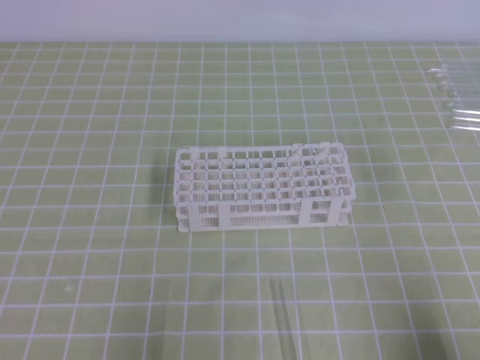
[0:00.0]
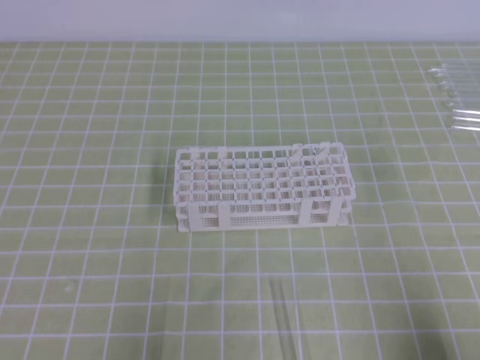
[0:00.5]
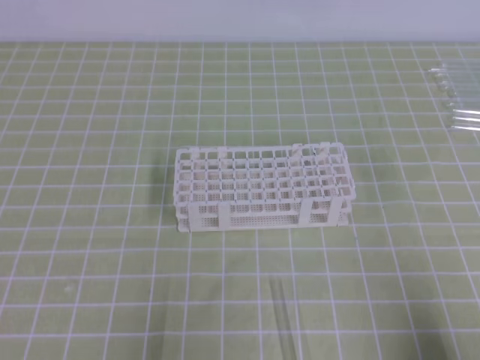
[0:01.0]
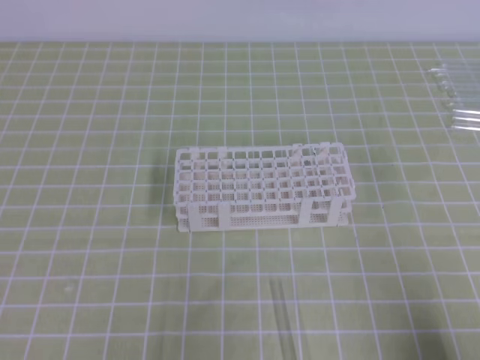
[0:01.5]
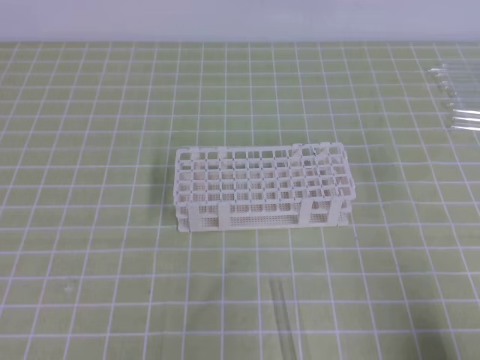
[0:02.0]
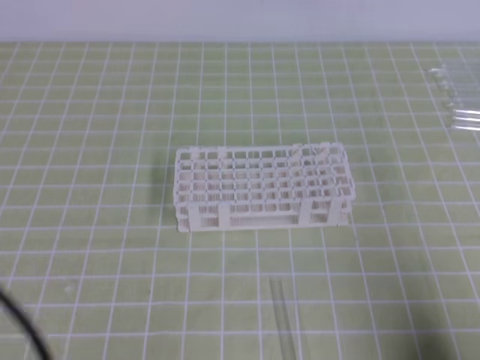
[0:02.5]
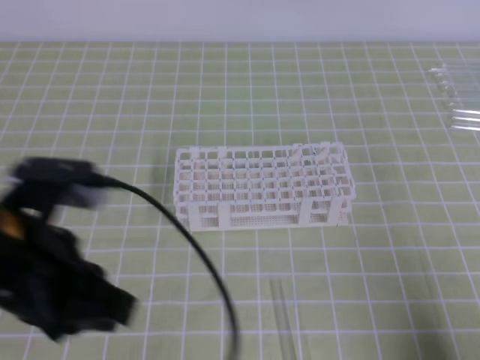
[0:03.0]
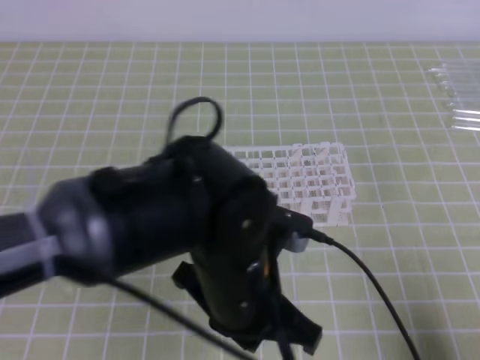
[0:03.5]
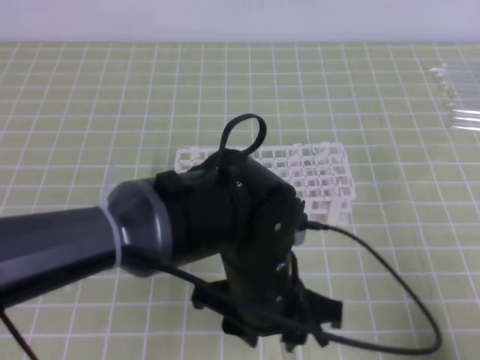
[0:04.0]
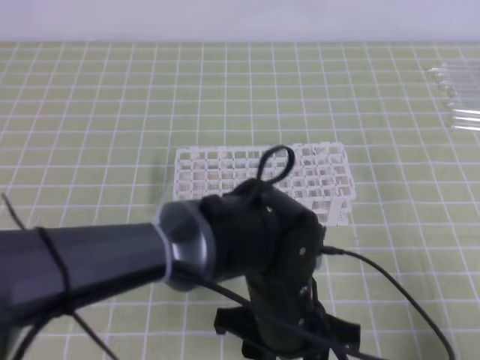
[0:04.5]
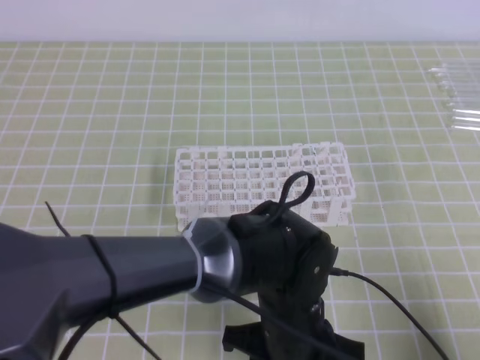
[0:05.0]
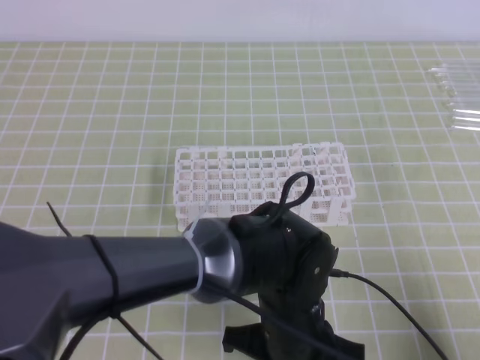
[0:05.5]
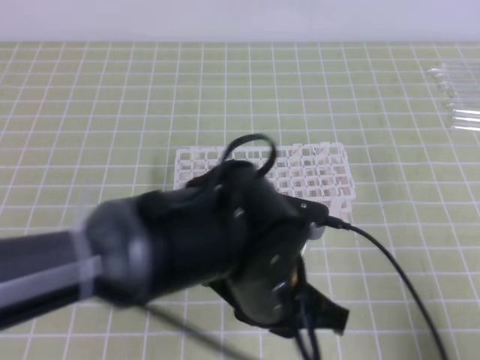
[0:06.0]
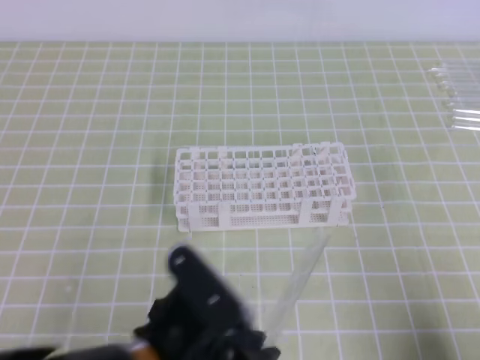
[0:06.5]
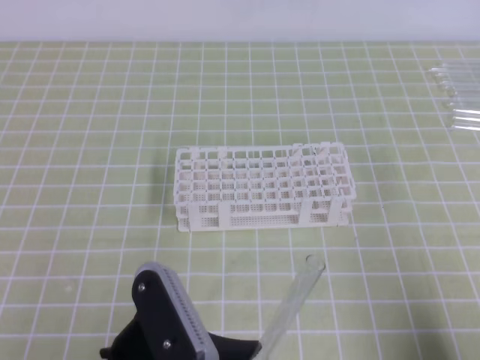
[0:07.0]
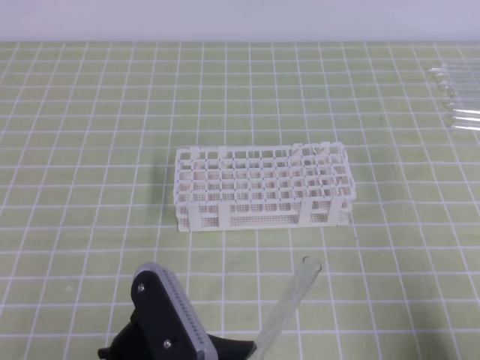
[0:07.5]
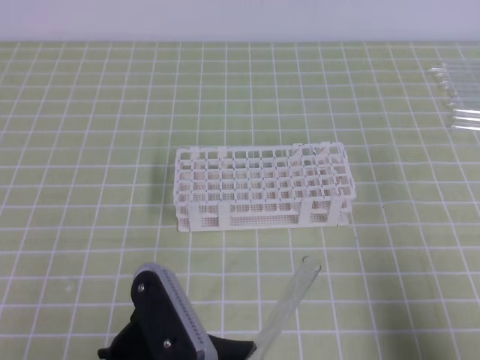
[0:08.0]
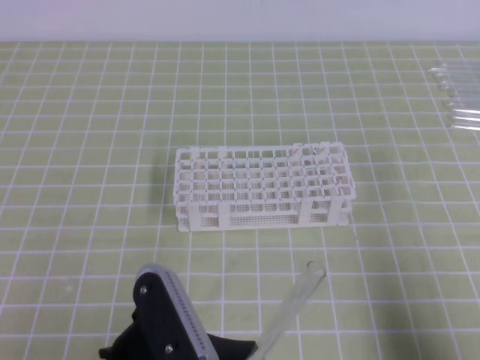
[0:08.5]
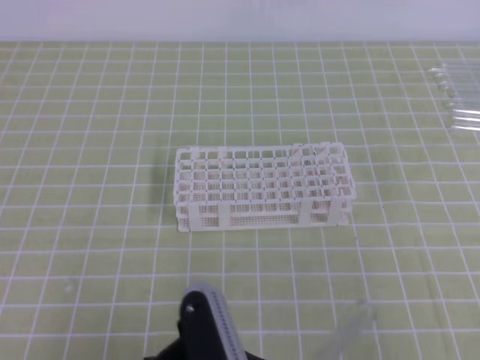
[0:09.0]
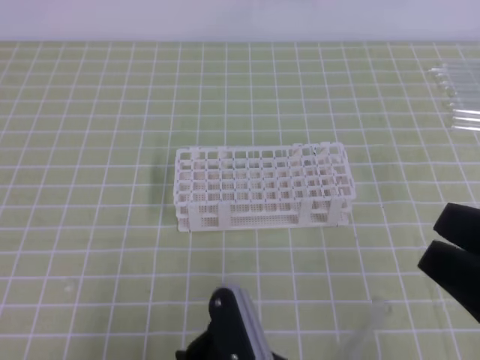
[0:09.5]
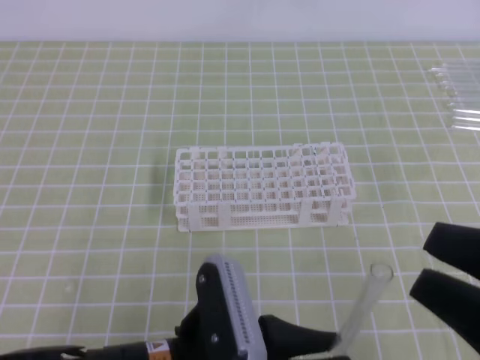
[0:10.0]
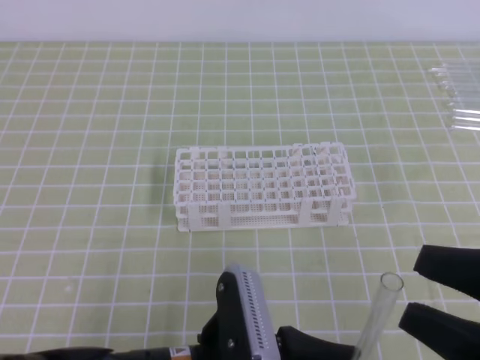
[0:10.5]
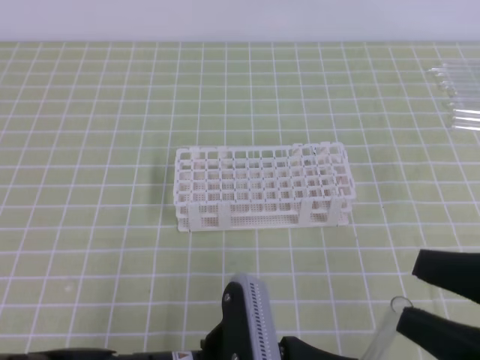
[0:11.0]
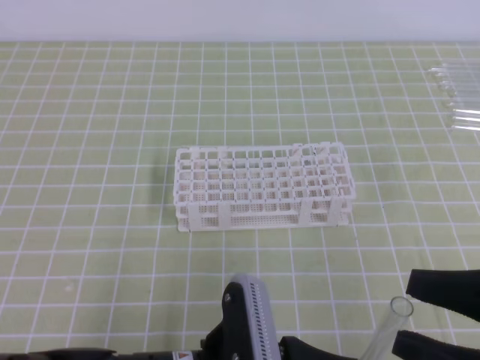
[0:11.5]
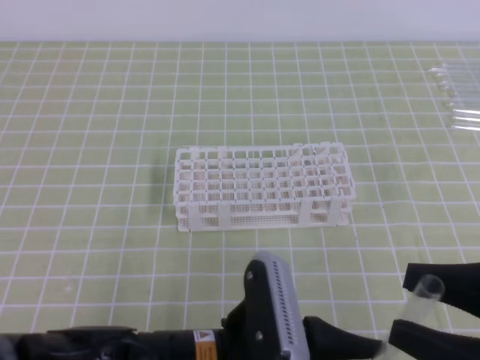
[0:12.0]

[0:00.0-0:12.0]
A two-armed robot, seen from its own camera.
0:02.0 to 0:04.0: The left gripper travels to the right and forward by roughly 30 cm, and opens up.
0:04.0 to 0:06.0: The left gripper closes.
0:06.0 to 0:08.0: The left gripper moves to the left and backward, some 15 cm.
0:08.0 to 0:10.0: The right gripper travels upward and to the left by about 15 cm, and opens its fingers, while the left gripper moves some 5 cm.
0:10.0 to 0:12.0: The grippers move only a little.

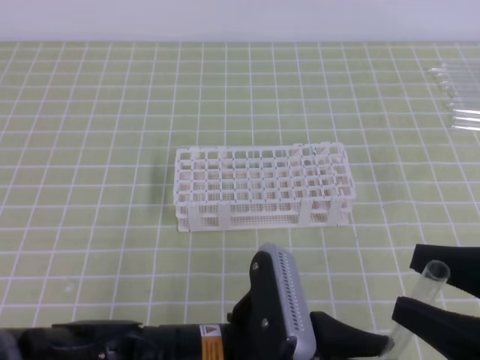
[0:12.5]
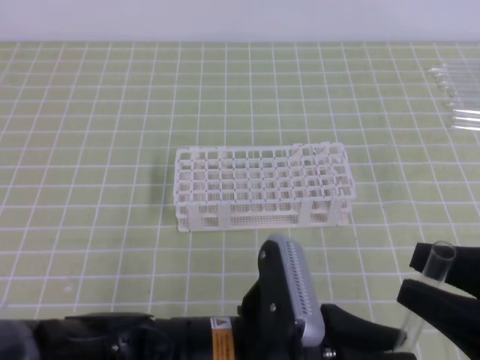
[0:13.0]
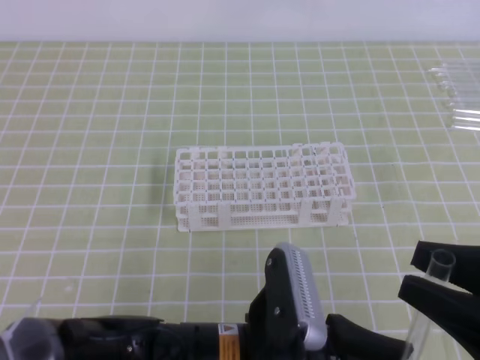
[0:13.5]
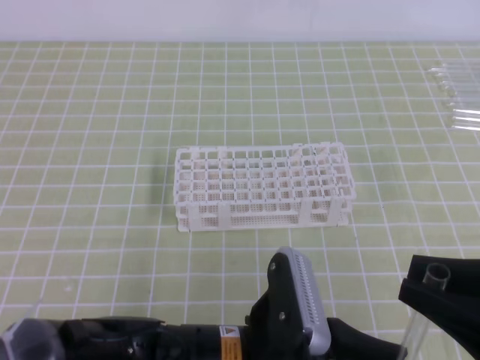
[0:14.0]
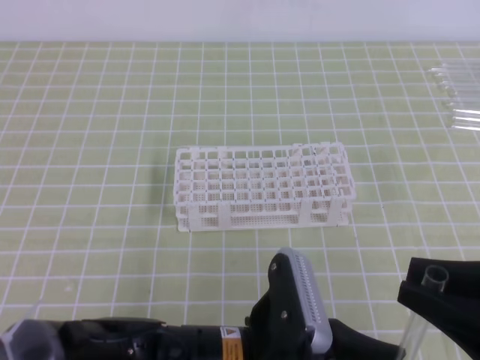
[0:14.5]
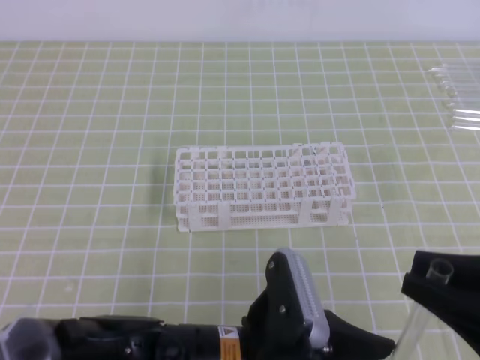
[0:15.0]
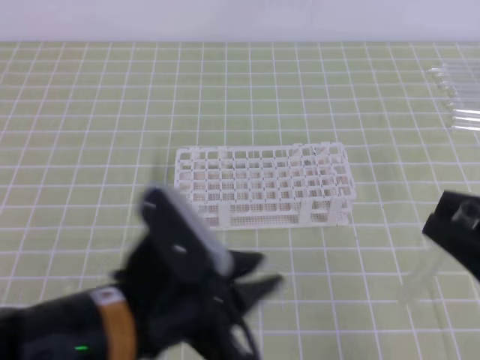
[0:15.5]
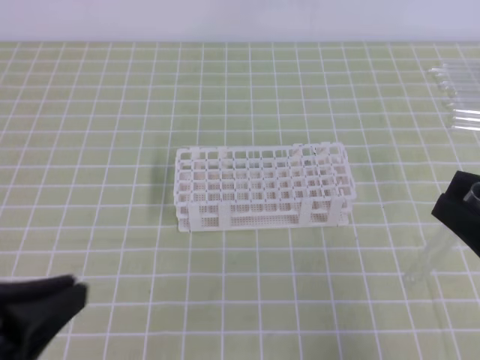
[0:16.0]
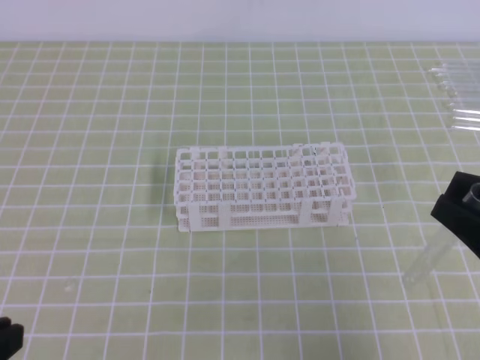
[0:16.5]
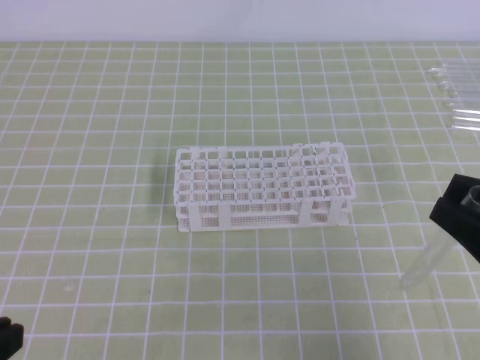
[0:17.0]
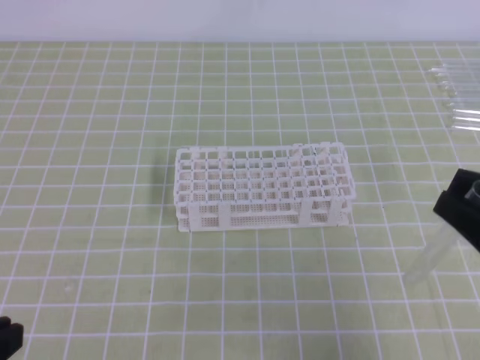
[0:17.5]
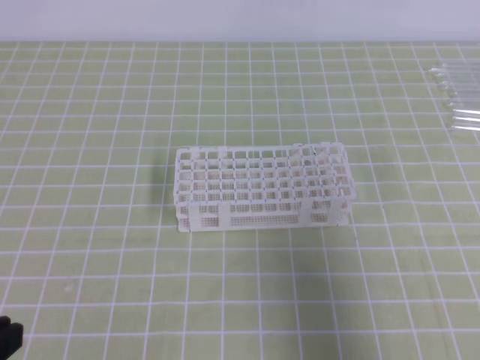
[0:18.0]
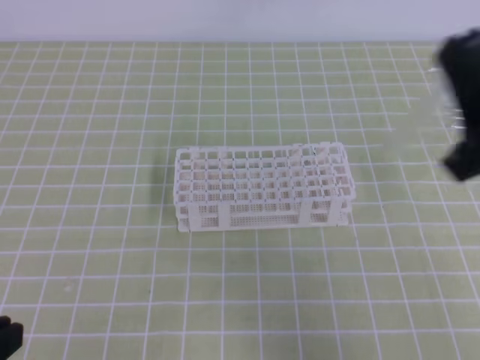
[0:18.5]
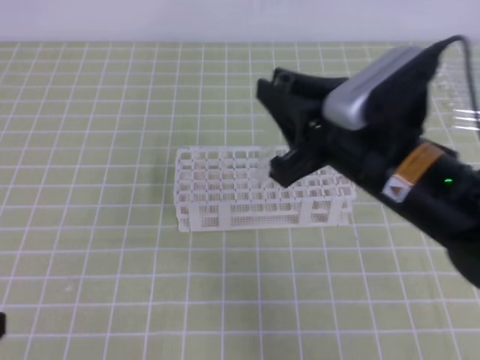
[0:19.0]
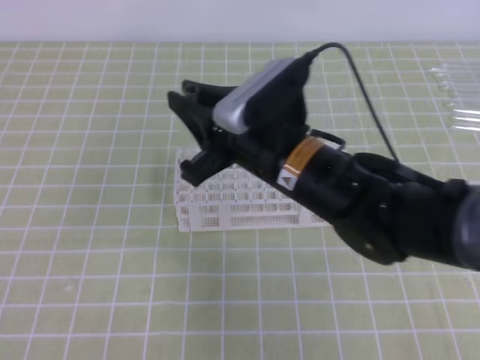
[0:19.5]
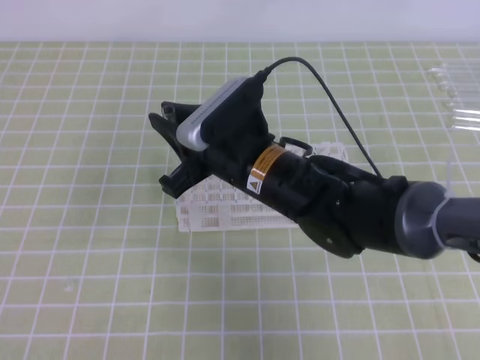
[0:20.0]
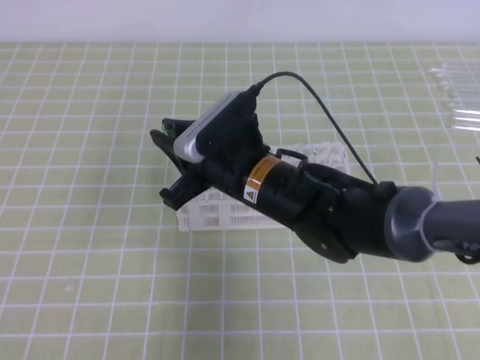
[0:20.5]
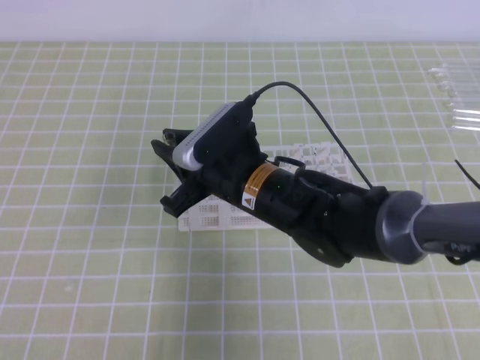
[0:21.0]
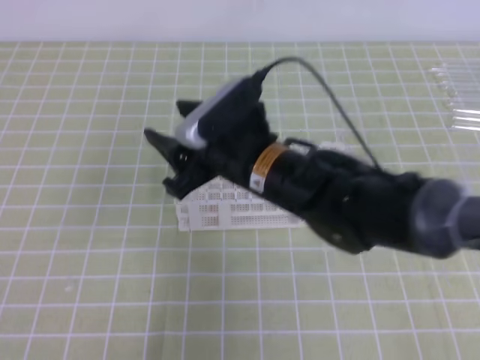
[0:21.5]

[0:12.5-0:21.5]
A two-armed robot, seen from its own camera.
0:12.5 to 0:14.5: The right gripper closes its fingers.
0:14.5 to 0:17.0: The left gripper heads to the left, covering about 25 cm, and opens, then closes once more.
0:17.0 to 0:19.5: The right gripper shifts some 25 cm to the left and forward.
0:19.5 to 0:21.5: The left gripper is displaced downward by roughly 10 cm, while the right gripper opens its fingers.

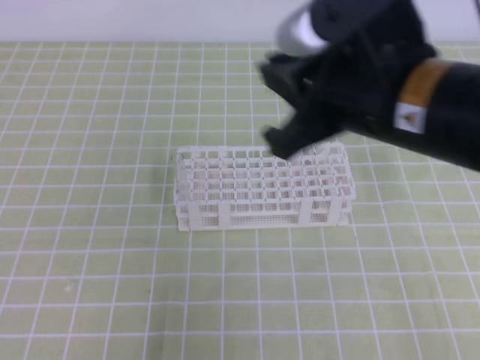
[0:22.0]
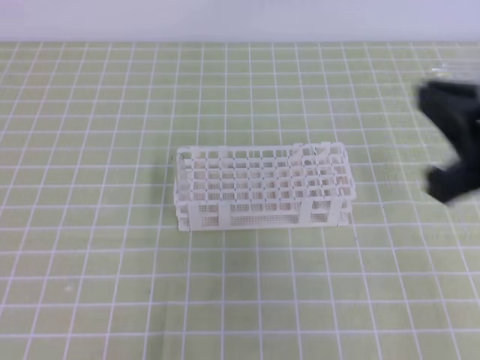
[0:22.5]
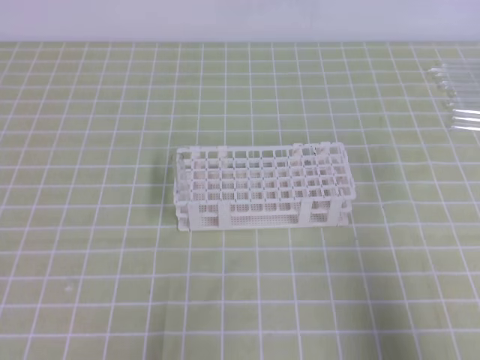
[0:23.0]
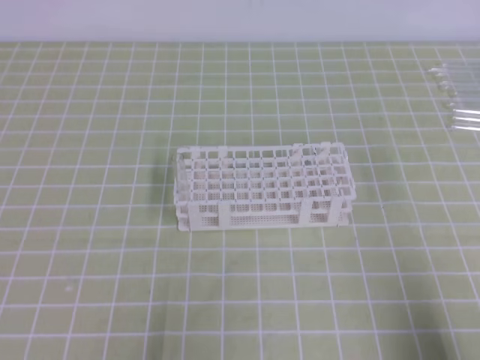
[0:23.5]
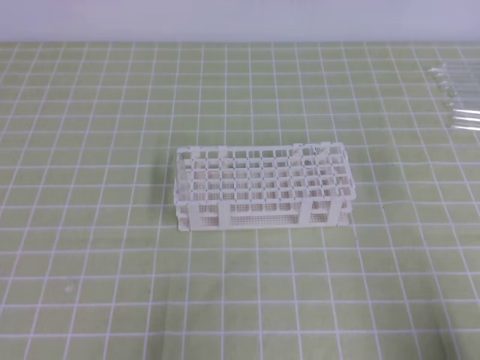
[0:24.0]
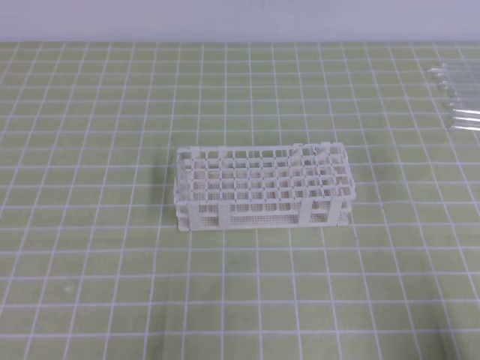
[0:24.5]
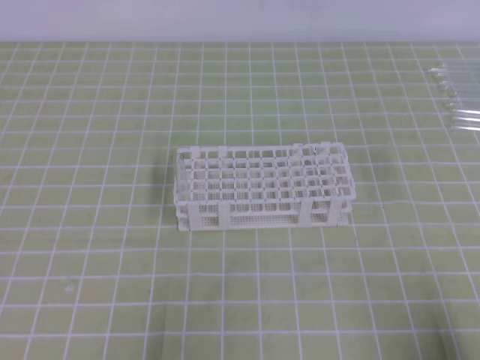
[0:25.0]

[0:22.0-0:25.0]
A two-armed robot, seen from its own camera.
0:22.0 to 0:23.5: The right gripper goes roughly 30 cm to the right, downward and backward.

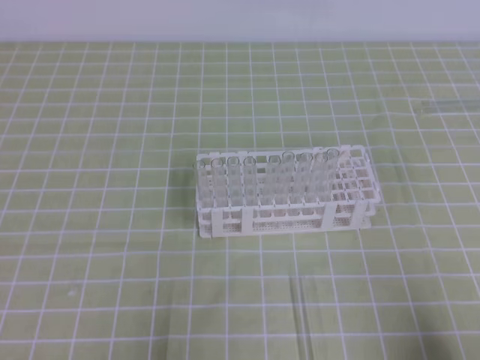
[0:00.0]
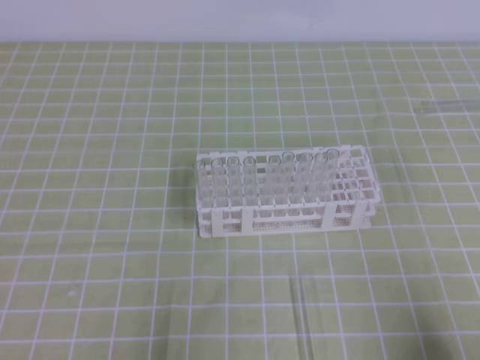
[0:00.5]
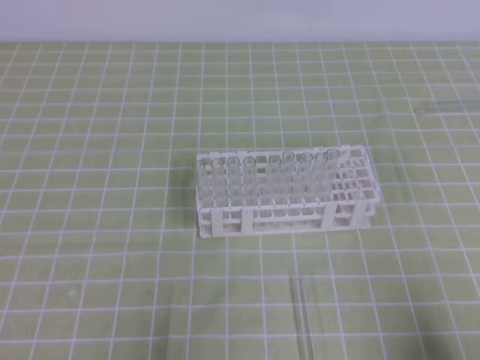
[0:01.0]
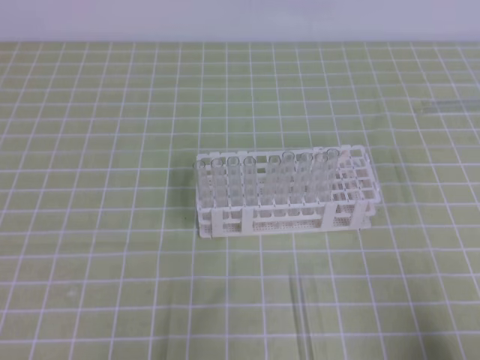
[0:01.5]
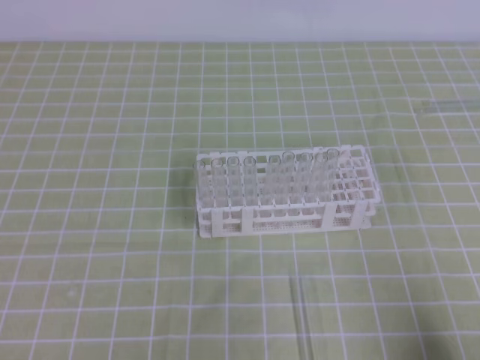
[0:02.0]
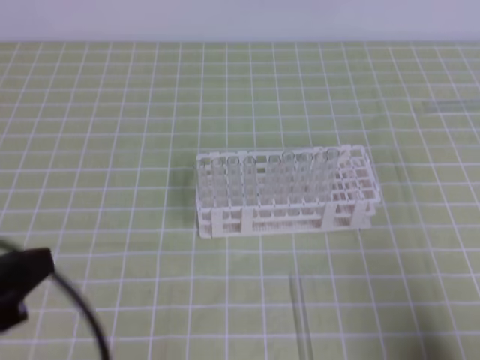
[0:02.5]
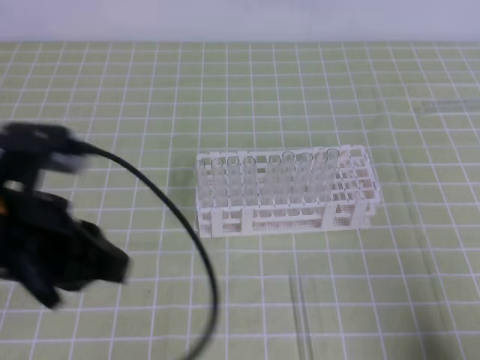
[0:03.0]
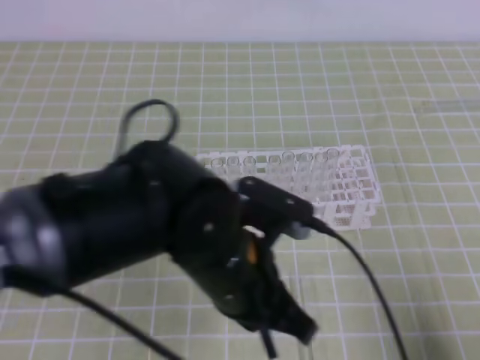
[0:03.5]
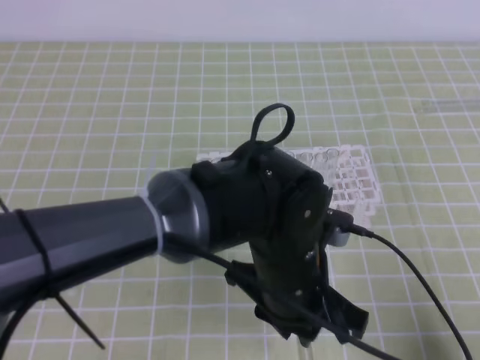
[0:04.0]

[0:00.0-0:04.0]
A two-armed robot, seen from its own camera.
0:02.0 to 0:04.0: The left gripper travels to the right and forward by roughly 35 cm, and opens its fingers.
